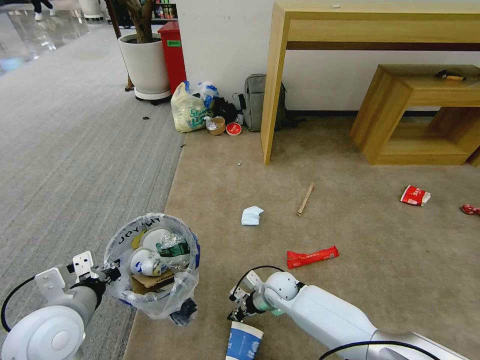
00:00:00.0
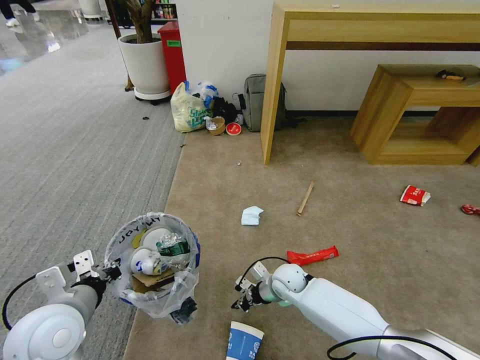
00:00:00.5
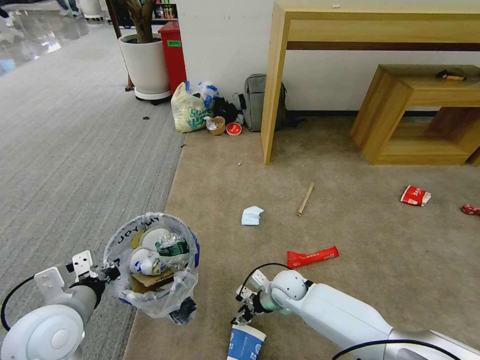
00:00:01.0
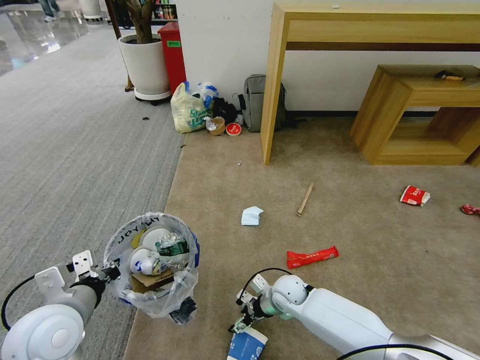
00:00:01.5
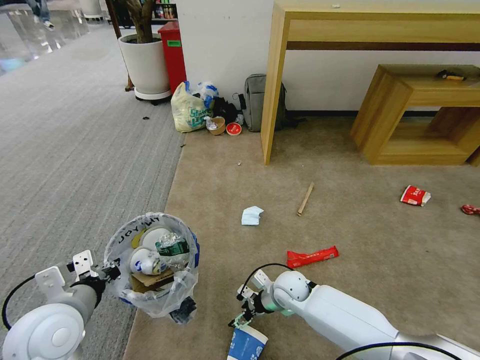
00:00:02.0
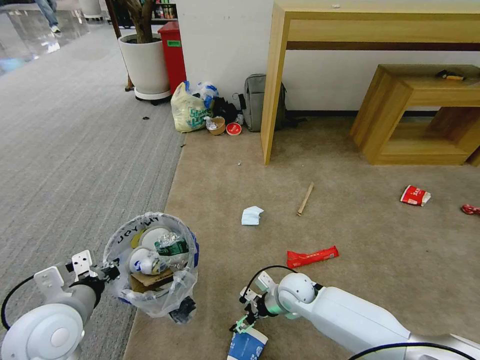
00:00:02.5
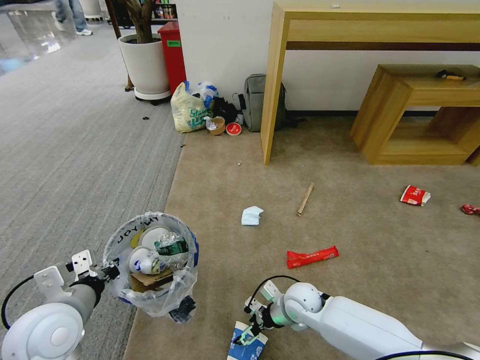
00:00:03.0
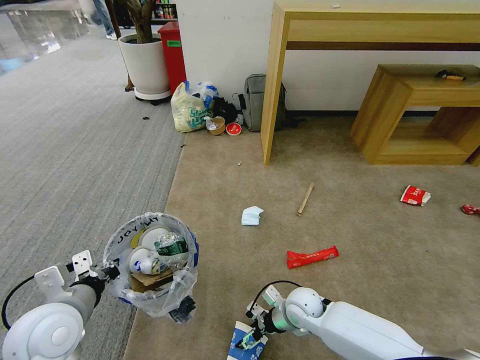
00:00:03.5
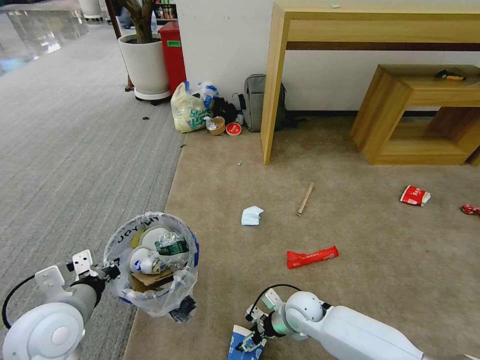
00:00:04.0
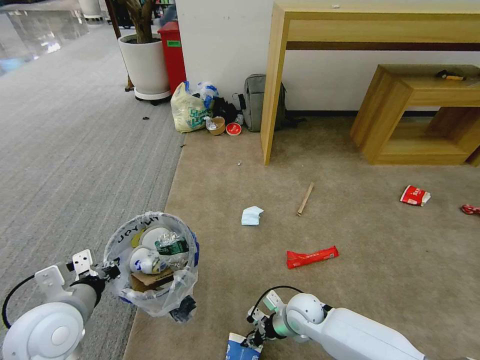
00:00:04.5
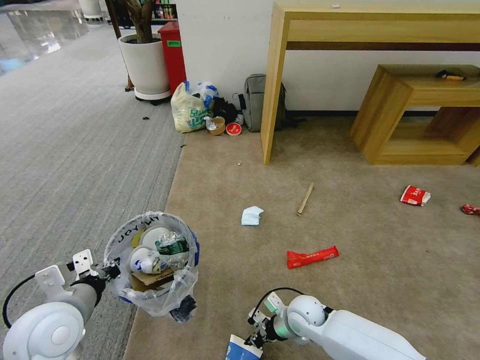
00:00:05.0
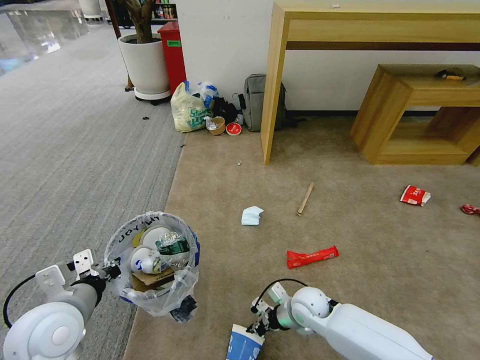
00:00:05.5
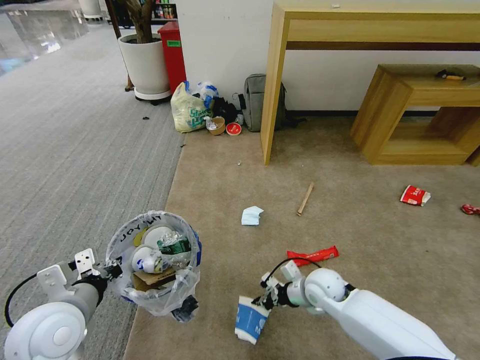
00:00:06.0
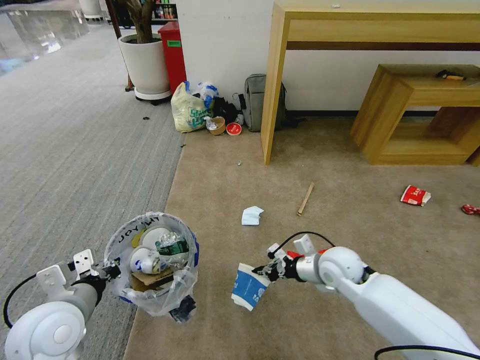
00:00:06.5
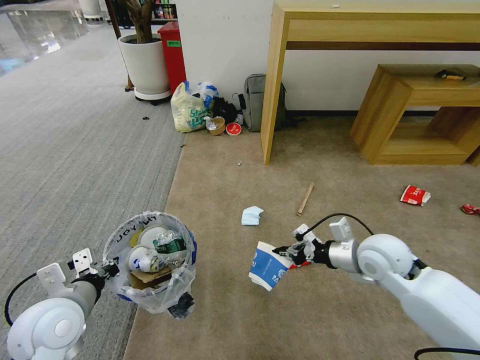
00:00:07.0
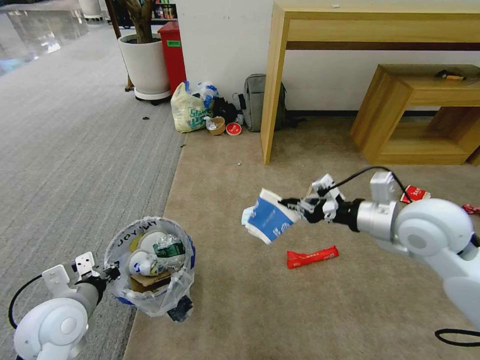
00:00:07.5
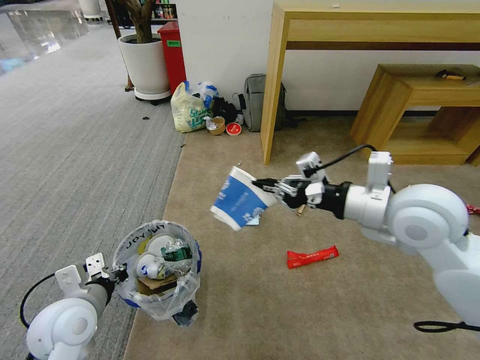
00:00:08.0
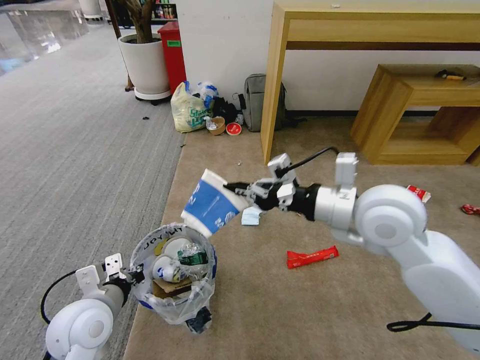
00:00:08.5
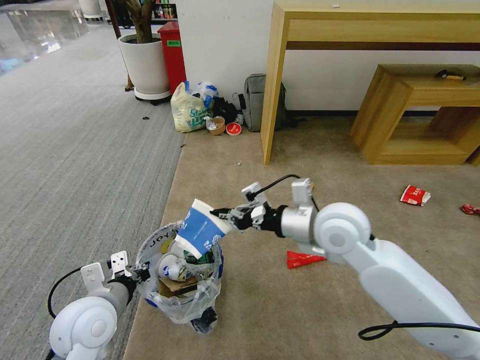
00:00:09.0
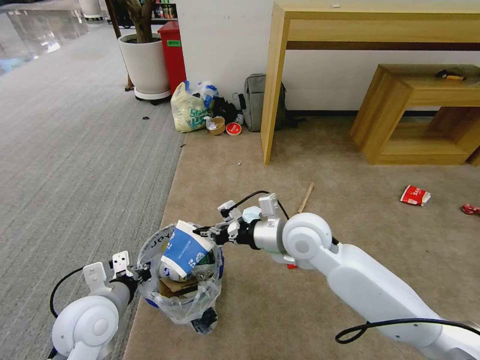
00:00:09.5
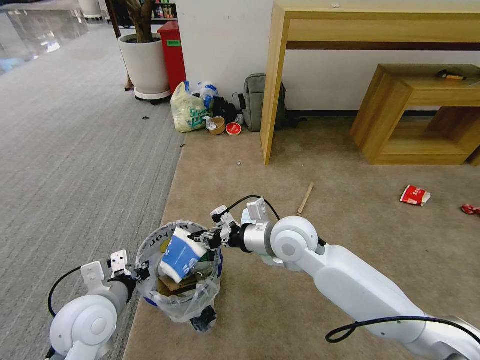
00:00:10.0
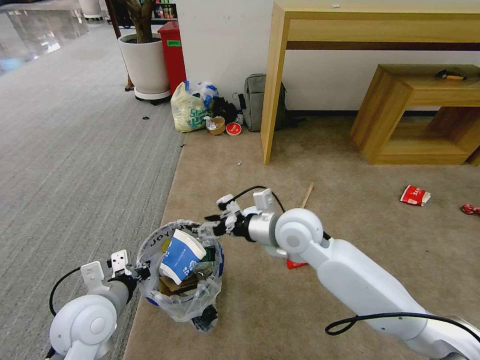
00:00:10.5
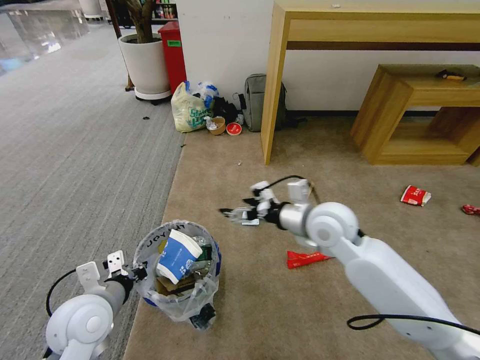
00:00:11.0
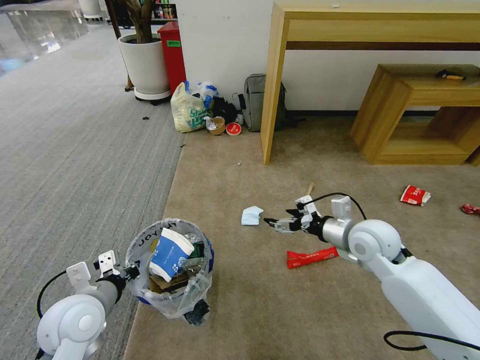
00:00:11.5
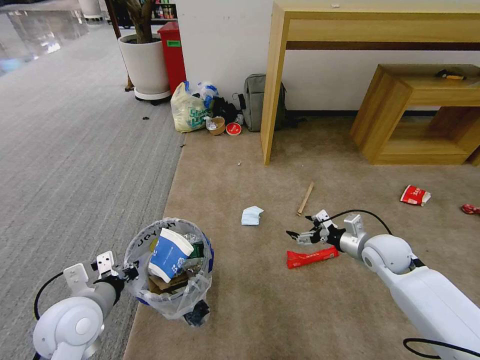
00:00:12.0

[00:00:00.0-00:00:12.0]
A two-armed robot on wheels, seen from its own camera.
Task of the whole recording: Pick up the trash bin and place the garbage on the floor into it.
00:00:00.0 to 00:00:02.0: The right gripper opens.
00:00:02.0 to 00:00:04.0: The right gripper moves backward, roughly 5 cm.
00:00:04.0 to 00:00:06.0: The right gripper is displaced upward by approximately 5 cm, and closes up.
00:00:06.0 to 00:00:08.0: The right gripper shifts roughly 35 cm upward.
00:00:08.0 to 00:00:10.0: The right gripper is displaced to the left and downward by approximately 20 cm.
00:00:10.0 to 00:00:12.0: The right gripper shifts some 25 cm to the right, and opens its fingers.

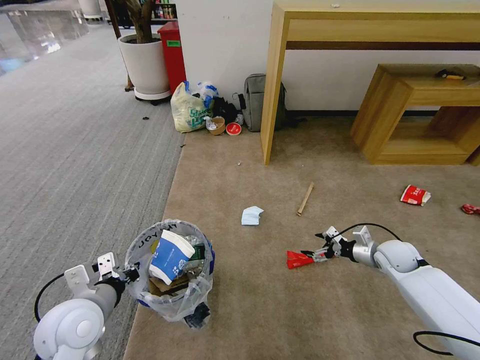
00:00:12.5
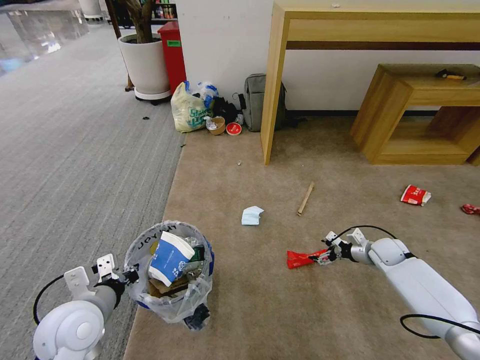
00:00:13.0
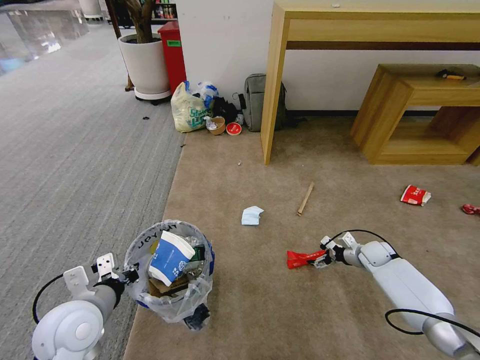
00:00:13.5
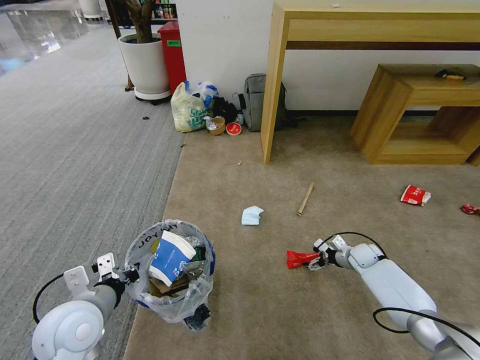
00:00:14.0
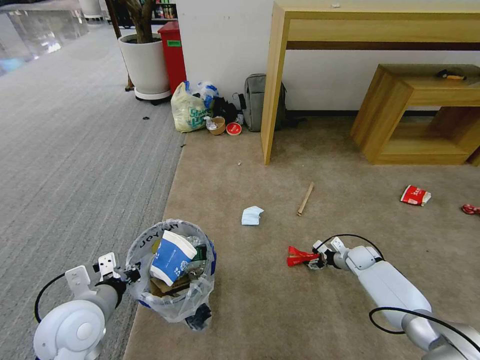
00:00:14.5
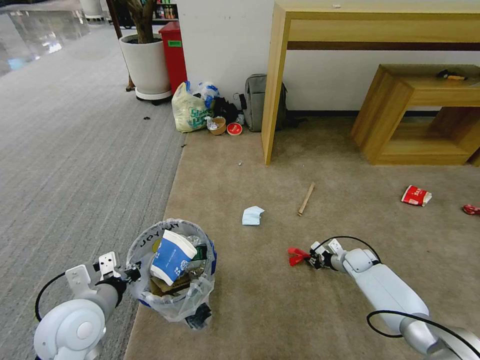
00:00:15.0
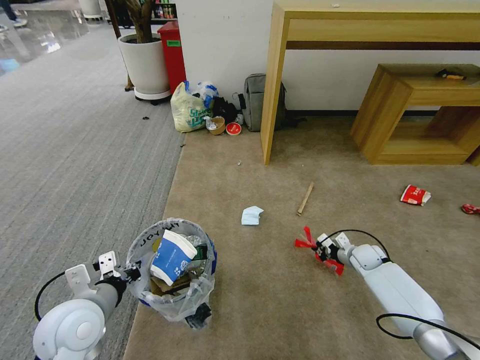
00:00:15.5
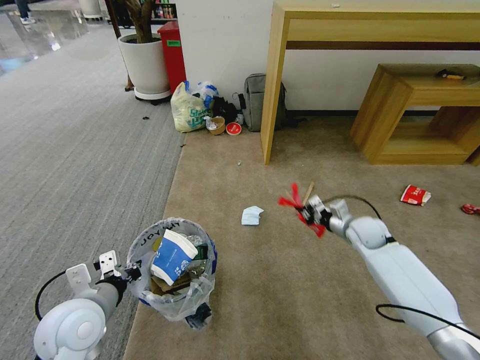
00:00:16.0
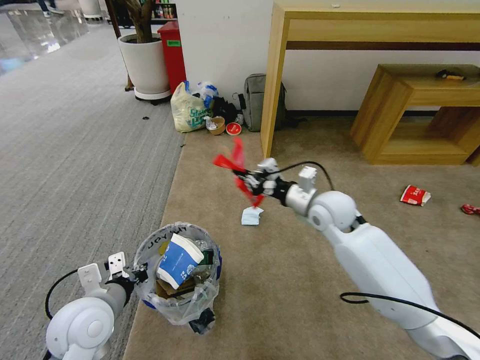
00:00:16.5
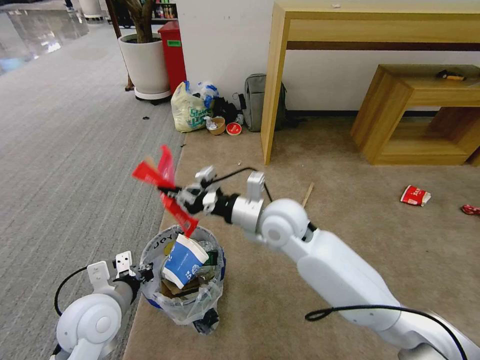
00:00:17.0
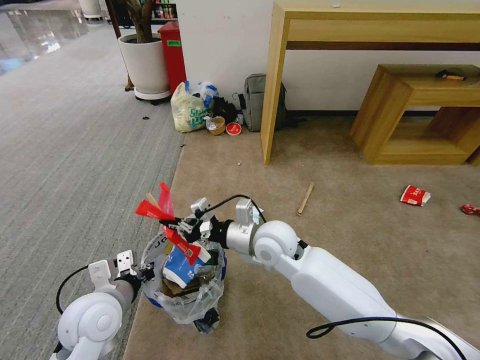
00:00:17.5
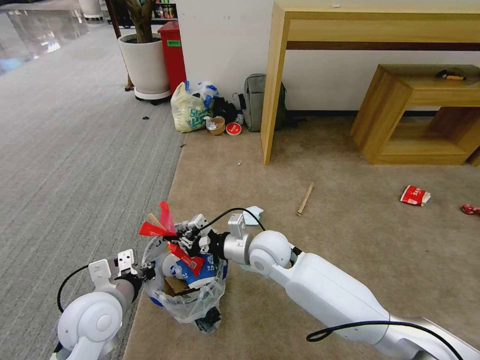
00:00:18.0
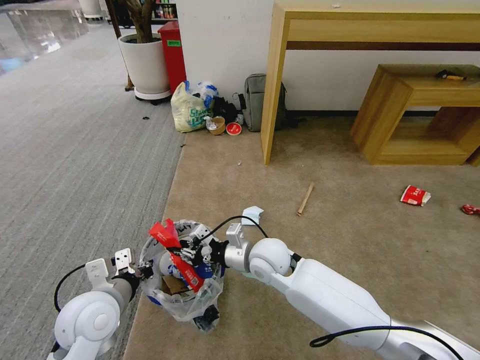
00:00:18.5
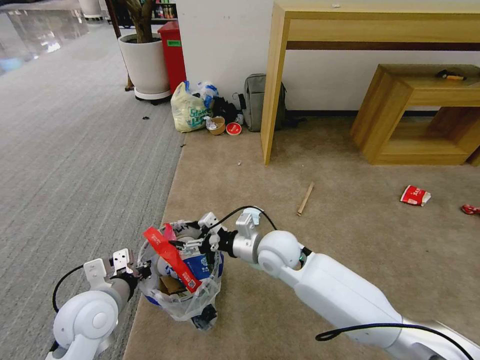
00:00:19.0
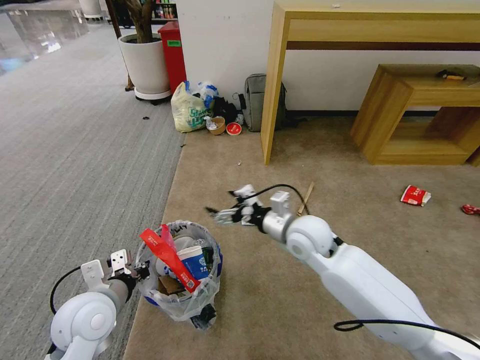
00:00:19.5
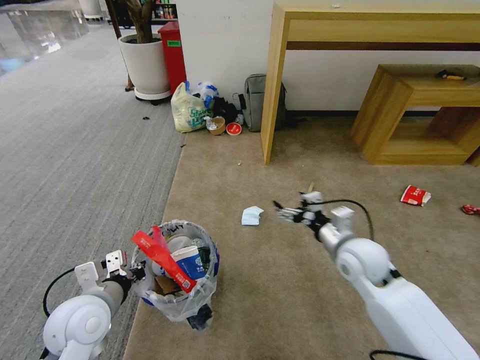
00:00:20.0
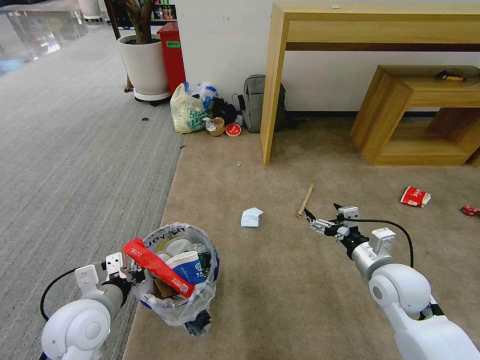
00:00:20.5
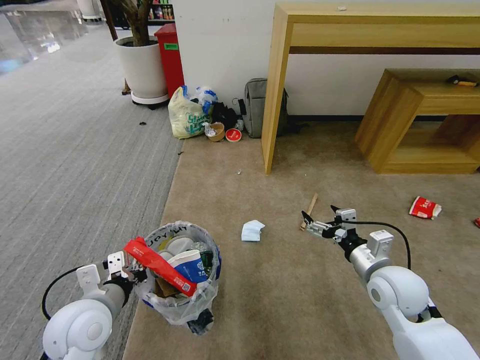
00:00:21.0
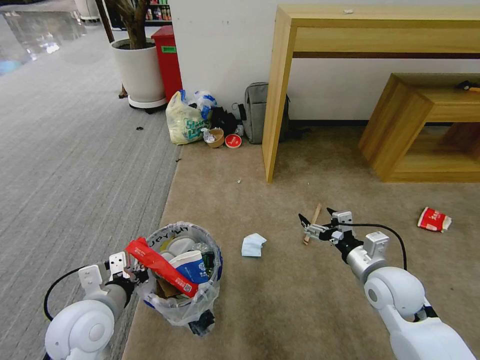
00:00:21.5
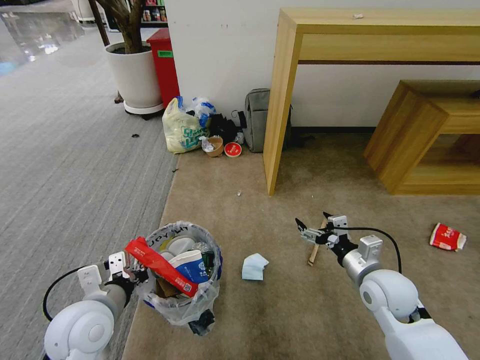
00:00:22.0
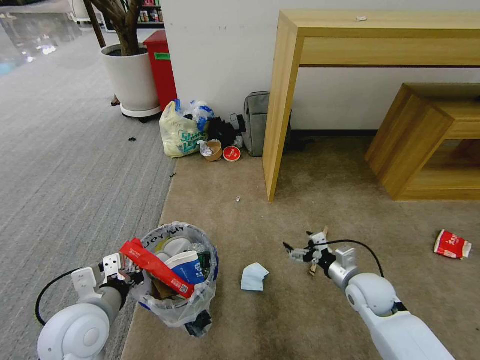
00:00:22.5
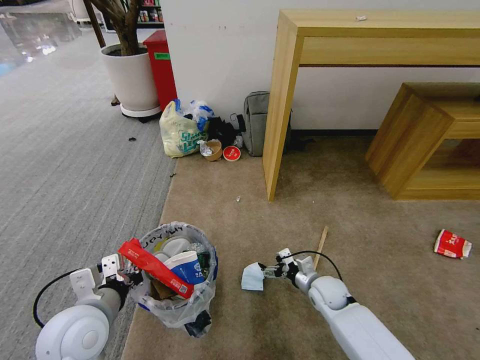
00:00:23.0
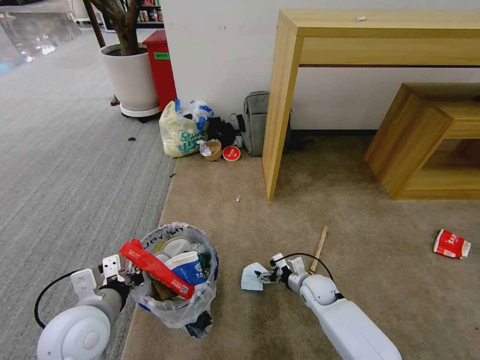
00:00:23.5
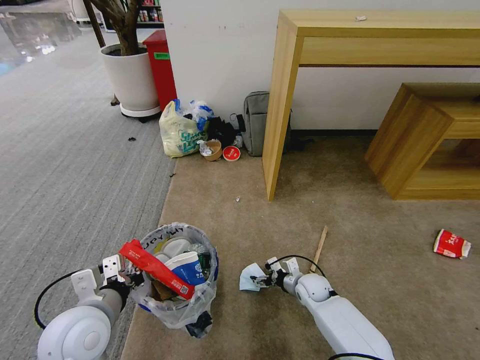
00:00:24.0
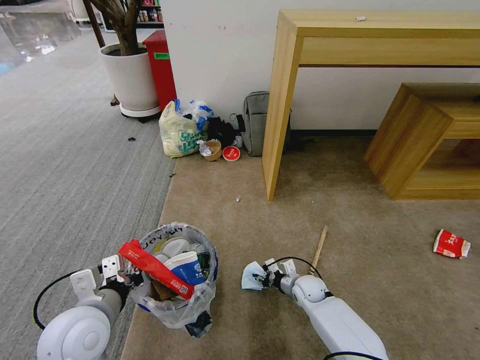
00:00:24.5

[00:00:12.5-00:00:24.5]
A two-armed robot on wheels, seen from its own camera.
Task of the whole recording: Pick up the trash bin and place the garbage on the floor into it.
00:00:12.5 to 00:00:14.5: The right gripper shifts some 10 cm downward and forward.
00:00:14.5 to 00:00:16.5: The right gripper is displaced upward and to the left by about 35 cm, and closes its fingers.
00:00:16.5 to 00:00:18.5: The right gripper moves to the left, downward and backward, approximately 20 cm.
00:00:18.5 to 00:00:20.5: The right gripper travels to the right by about 25 cm, and opens up.
00:00:20.5 to 00:00:22.5: The right gripper travels downward by roughly 10 cm.
00:00:22.5 to 00:00:24.5: The right gripper moves downward, to the left and forward, approximately 20 cm, and closes up.

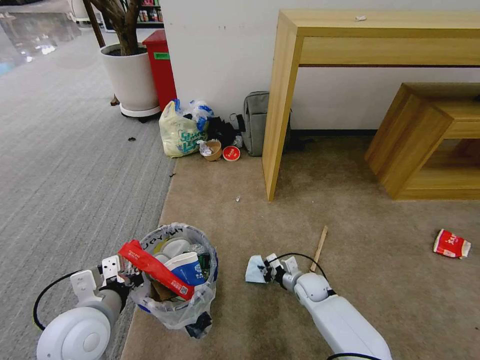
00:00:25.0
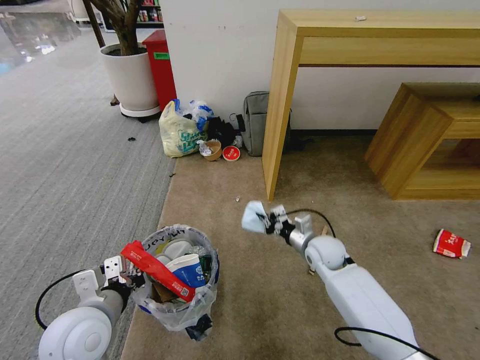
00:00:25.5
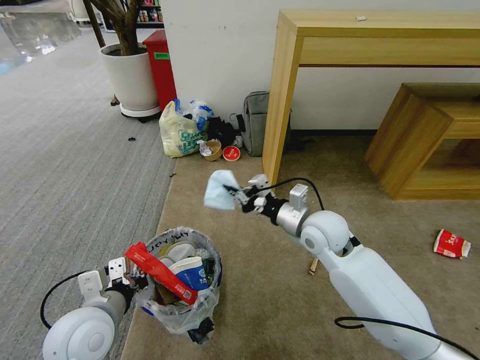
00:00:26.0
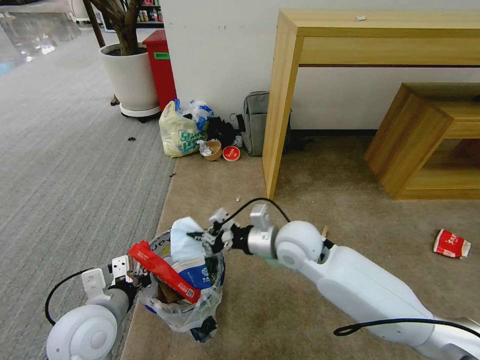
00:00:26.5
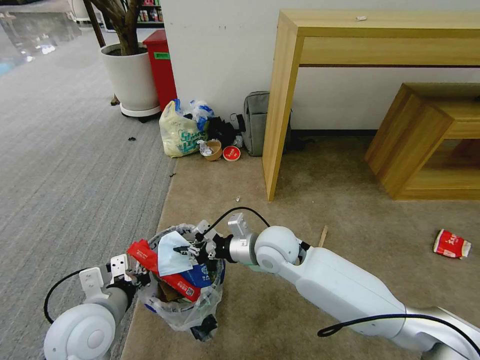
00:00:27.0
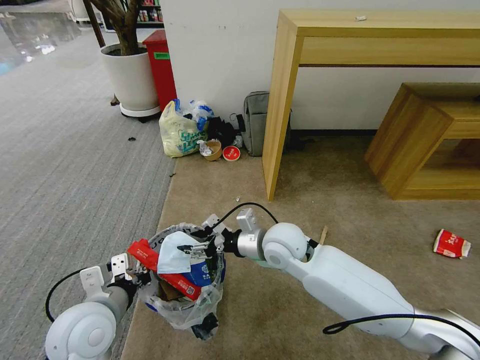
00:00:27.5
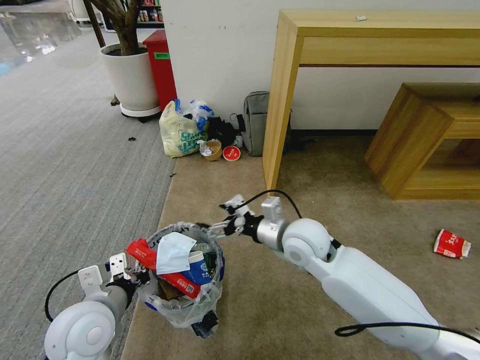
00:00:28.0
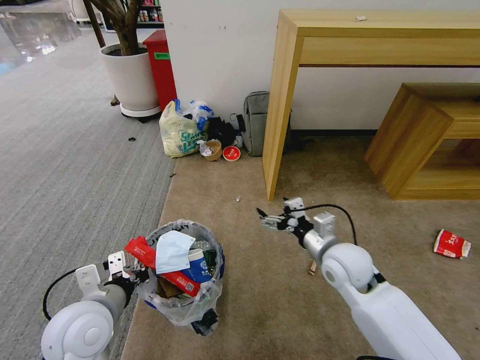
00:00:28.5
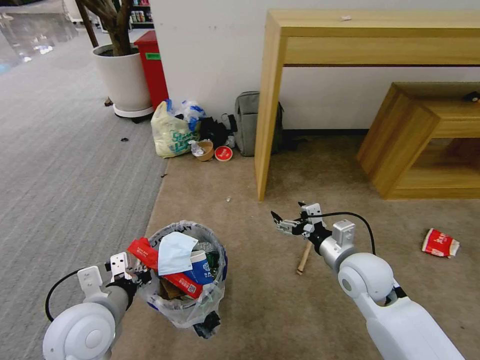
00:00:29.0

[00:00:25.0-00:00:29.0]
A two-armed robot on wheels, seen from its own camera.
Task of the whole recording: Pick up the trash bin and place the garbage on the floor into it.
00:00:25.0 to 00:00:27.0: The right gripper is displaced upward and to the left by about 30 cm.
00:00:27.0 to 00:00:29.0: The right gripper travels to the right by approximately 15 cm, and opens its fingers.
